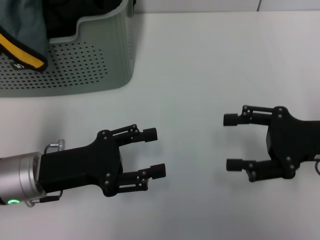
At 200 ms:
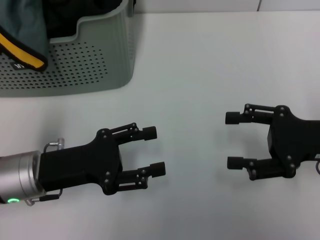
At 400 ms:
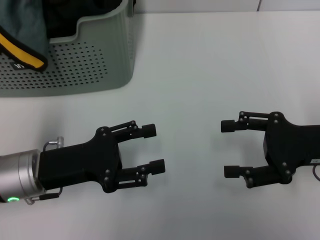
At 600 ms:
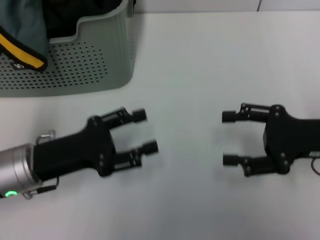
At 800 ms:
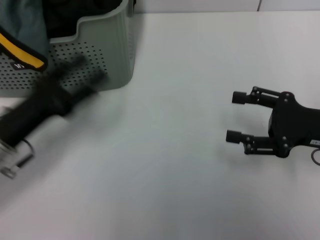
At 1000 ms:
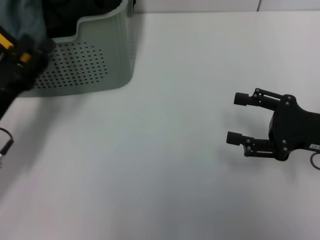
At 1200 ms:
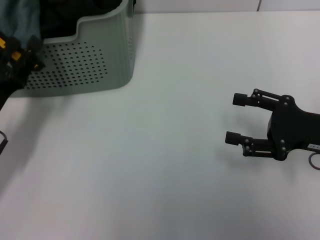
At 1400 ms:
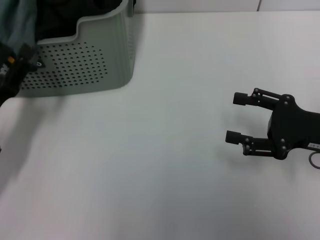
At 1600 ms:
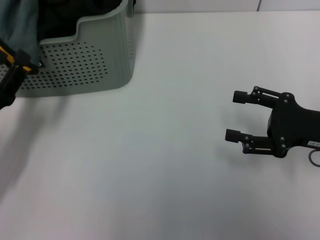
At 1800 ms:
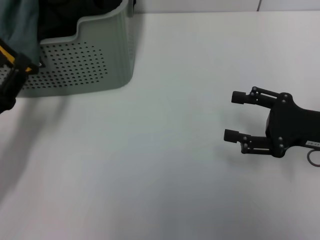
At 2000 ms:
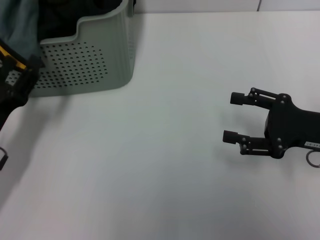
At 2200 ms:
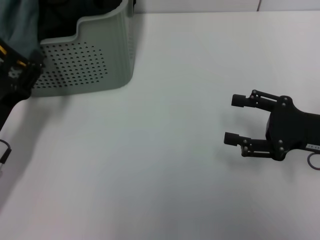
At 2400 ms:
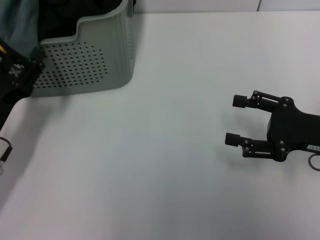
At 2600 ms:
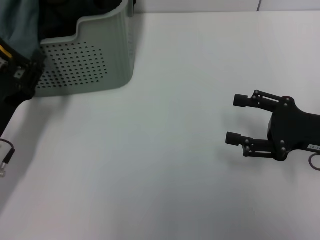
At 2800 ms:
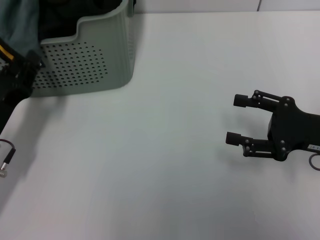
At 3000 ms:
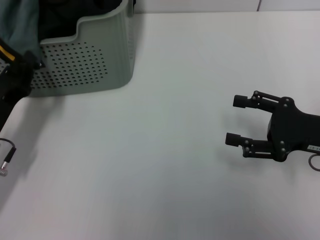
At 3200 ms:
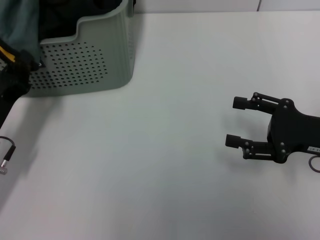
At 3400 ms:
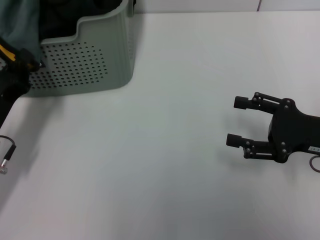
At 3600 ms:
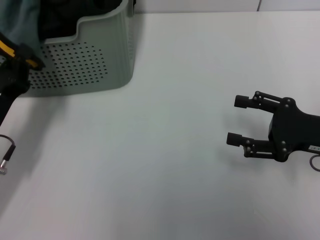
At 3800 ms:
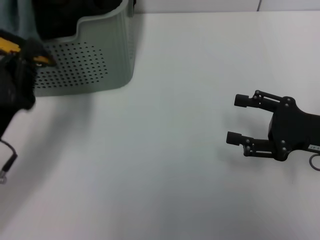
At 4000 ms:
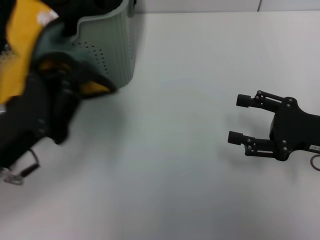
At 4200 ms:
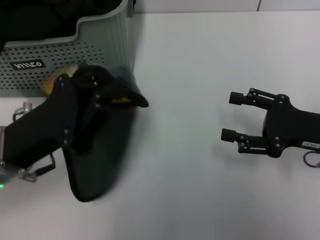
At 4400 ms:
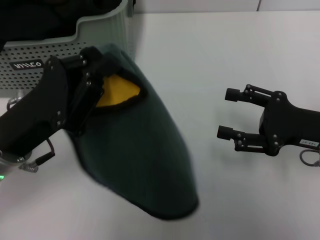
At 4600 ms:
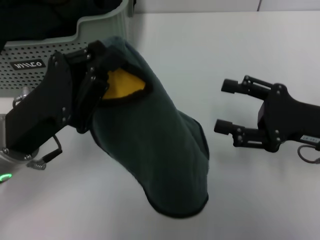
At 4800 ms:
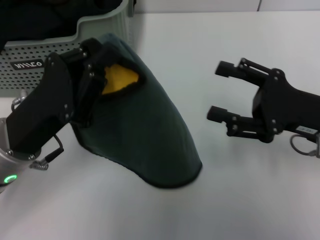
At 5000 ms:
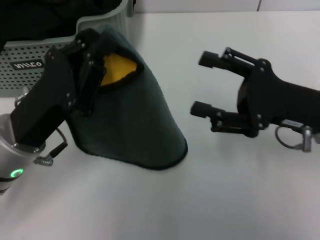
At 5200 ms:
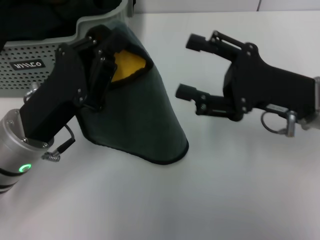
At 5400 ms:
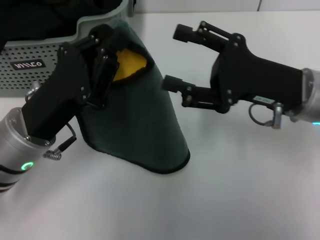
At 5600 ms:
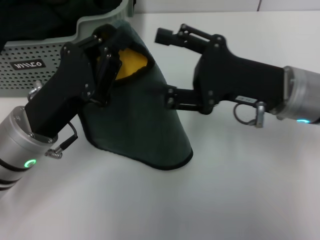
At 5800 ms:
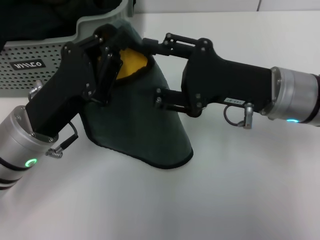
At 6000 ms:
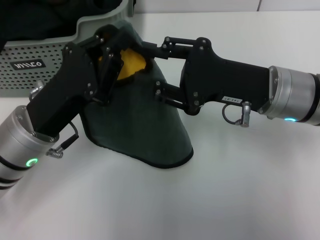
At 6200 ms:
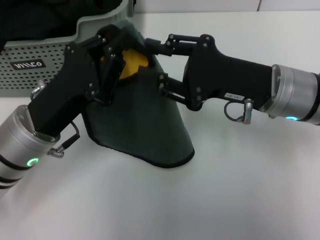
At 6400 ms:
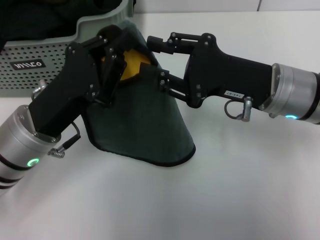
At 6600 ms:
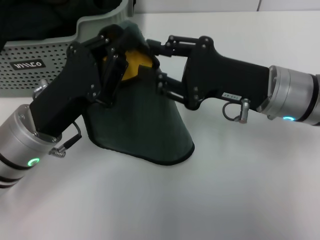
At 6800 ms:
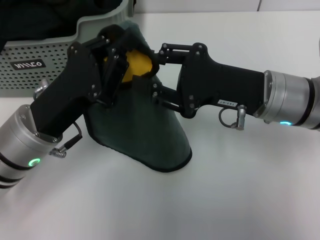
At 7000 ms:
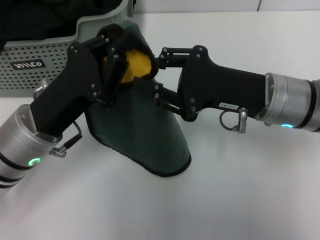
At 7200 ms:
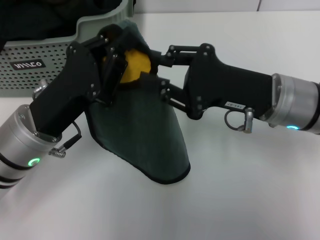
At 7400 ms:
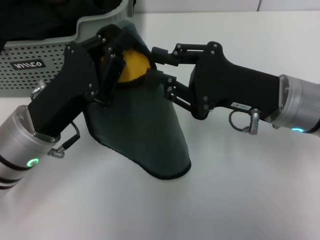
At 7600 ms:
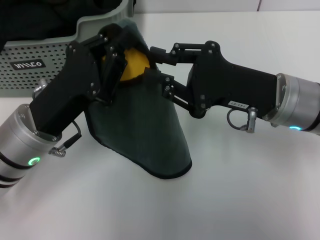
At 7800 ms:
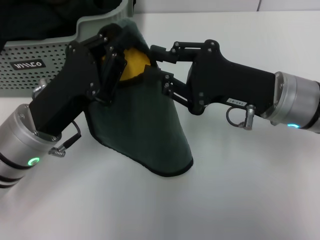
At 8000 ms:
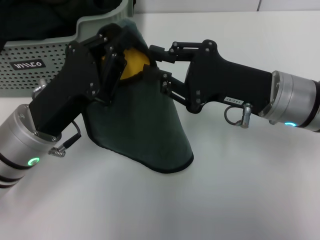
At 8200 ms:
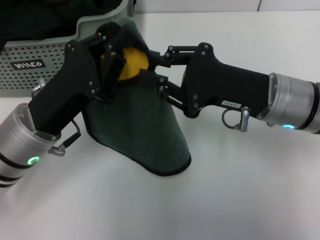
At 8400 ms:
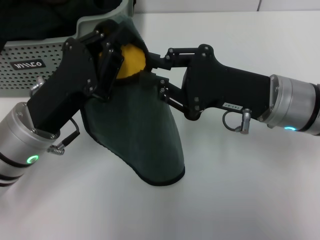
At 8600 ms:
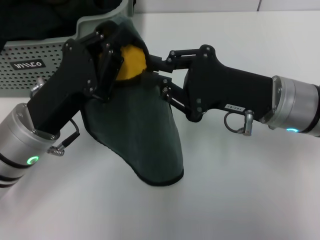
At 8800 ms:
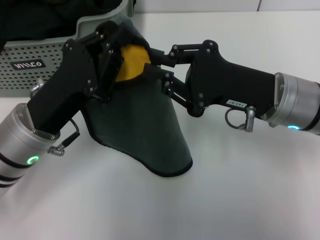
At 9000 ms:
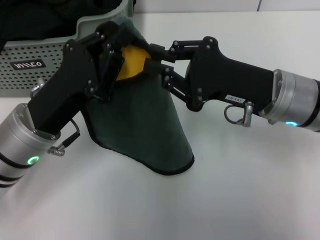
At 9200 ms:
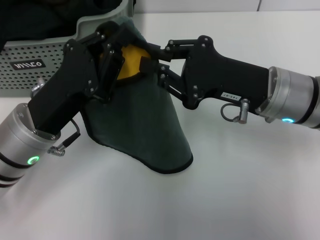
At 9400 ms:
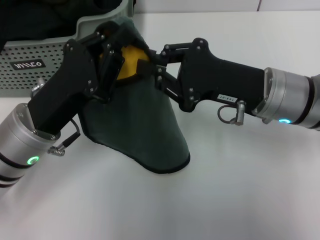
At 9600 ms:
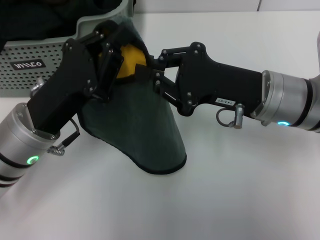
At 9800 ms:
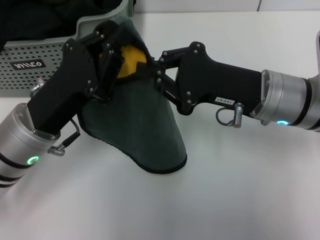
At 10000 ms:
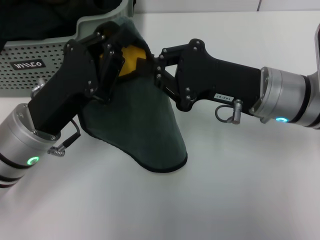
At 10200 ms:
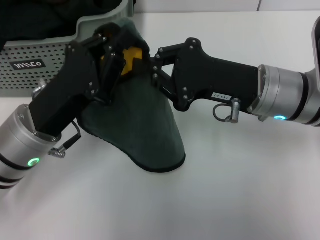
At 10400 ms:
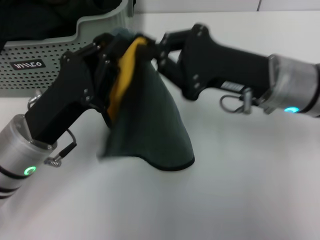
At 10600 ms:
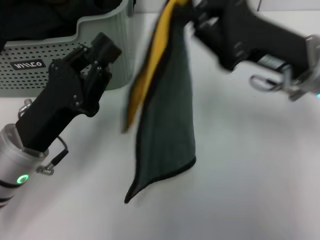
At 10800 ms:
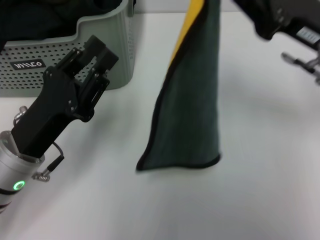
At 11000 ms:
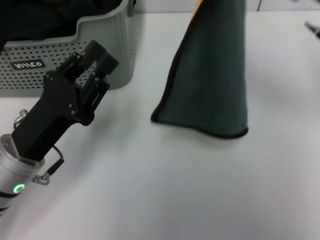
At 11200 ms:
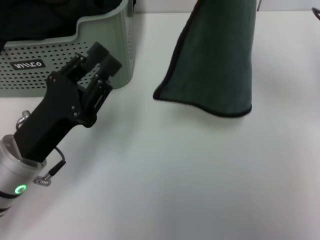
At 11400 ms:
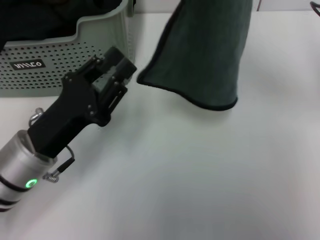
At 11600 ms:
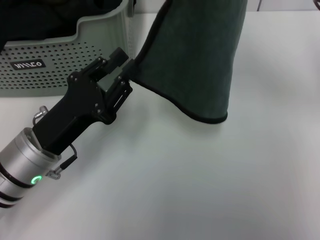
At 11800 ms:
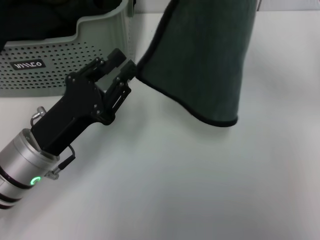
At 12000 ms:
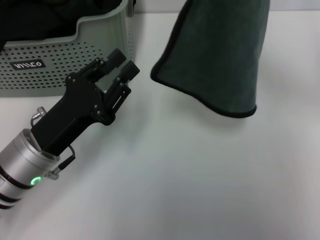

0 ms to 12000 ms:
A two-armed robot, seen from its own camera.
Task of the whole recording: pick up the towel from the storage box and lay it flat on the table.
Step, 0 ms to 3200 ms: Pick up a towel with the left gripper.
Step, 3400 ms to 9800 ms: Spread the towel flat with the left gripper.
0 ms to 1600 ms: The left gripper goes approximately 5 cm to the left.
1600 ms to 3000 ms: The left gripper closes.
3000 ms to 4400 ms: The left gripper heads upward and to the right, covering some 10 cm.
4400 ms to 6000 ms: The right gripper goes about 10 cm to the left.
6000 ms to 7600 ms: The right gripper closes.
7600 ms to 9000 ms: Both grippers stay put.
9000 ms to 10400 ms: The grippers stay close to where they were, moving slightly.
10400 ms to 12000 ms: The right gripper goes about 10 cm to the right and upward.

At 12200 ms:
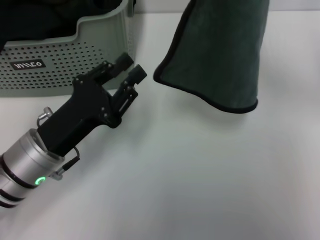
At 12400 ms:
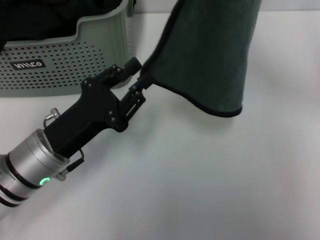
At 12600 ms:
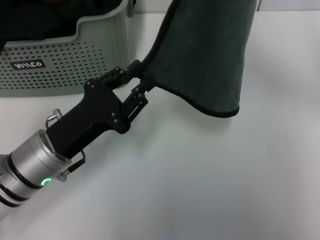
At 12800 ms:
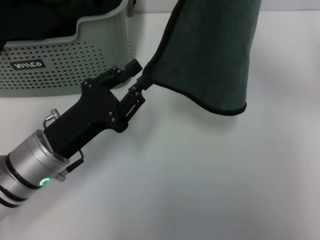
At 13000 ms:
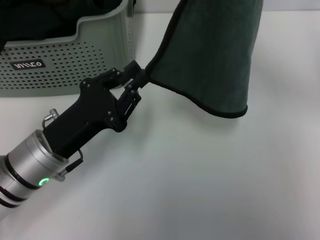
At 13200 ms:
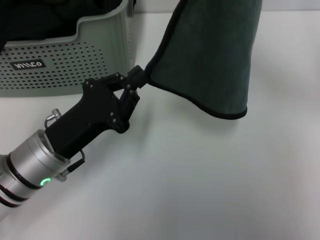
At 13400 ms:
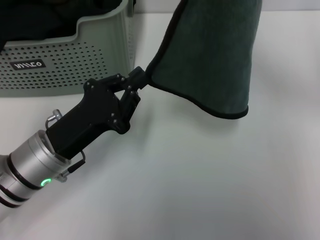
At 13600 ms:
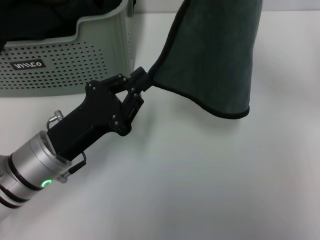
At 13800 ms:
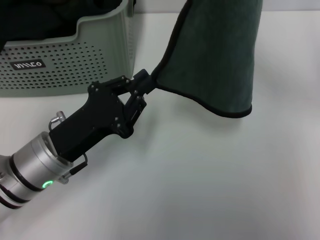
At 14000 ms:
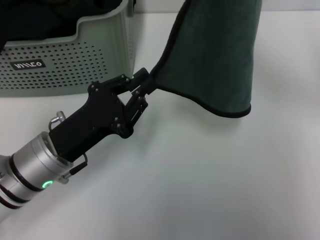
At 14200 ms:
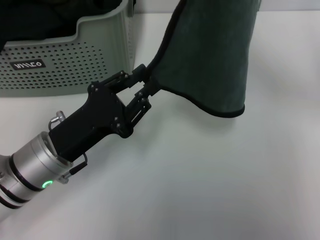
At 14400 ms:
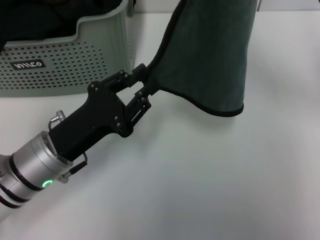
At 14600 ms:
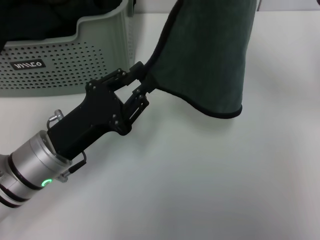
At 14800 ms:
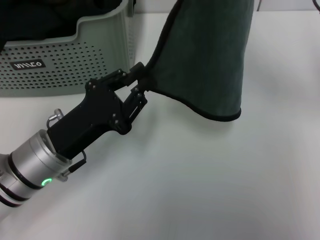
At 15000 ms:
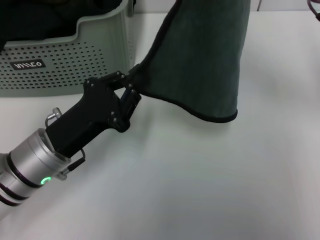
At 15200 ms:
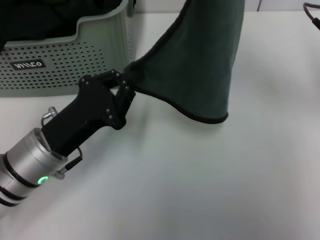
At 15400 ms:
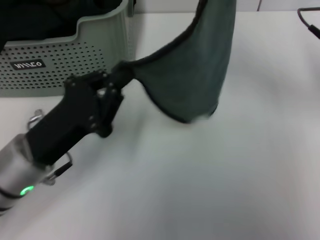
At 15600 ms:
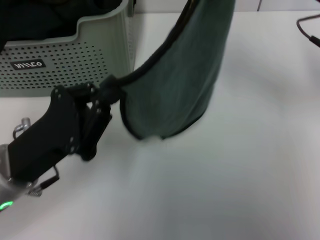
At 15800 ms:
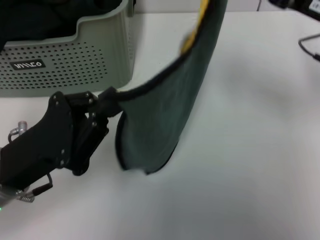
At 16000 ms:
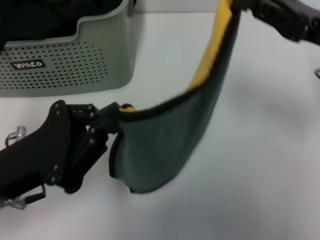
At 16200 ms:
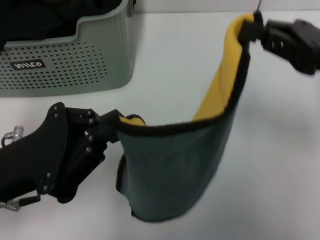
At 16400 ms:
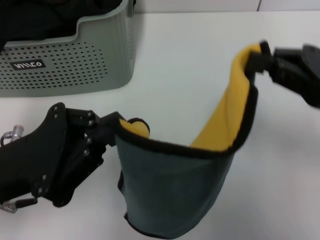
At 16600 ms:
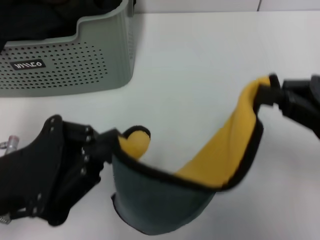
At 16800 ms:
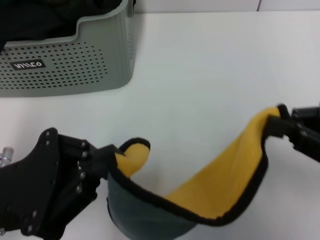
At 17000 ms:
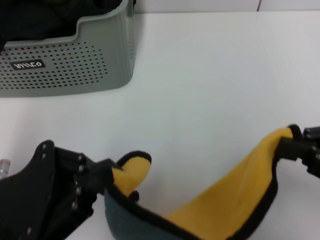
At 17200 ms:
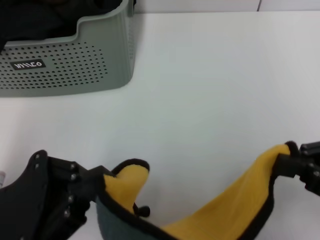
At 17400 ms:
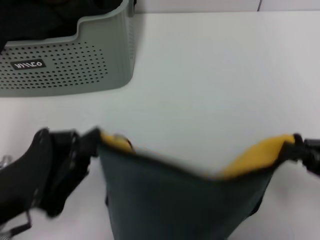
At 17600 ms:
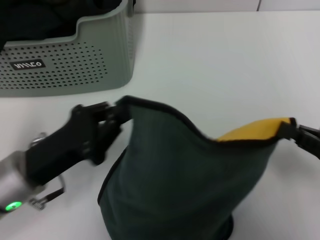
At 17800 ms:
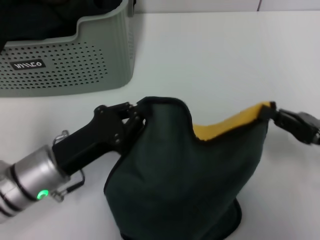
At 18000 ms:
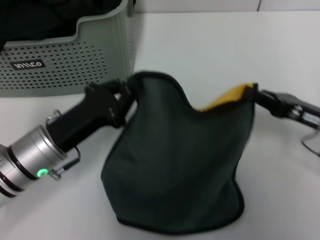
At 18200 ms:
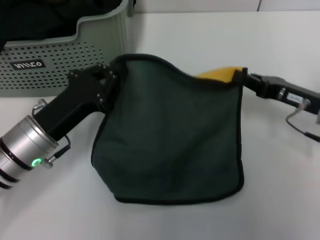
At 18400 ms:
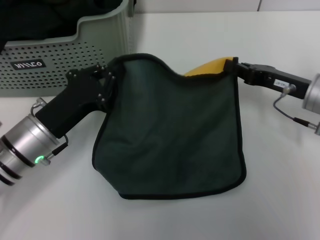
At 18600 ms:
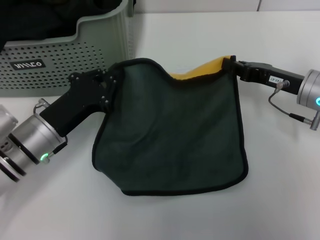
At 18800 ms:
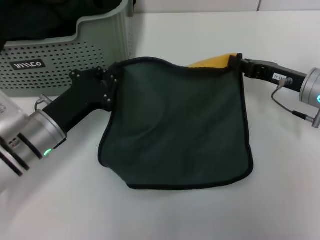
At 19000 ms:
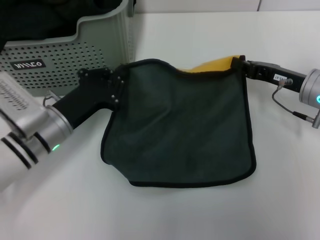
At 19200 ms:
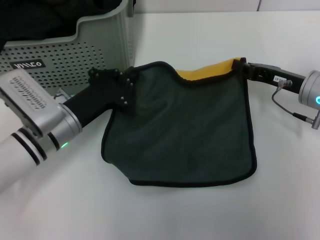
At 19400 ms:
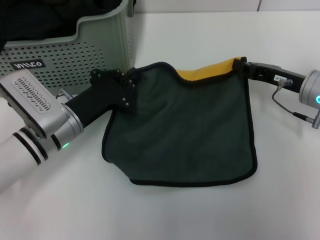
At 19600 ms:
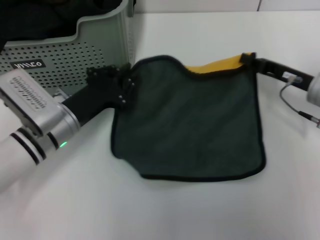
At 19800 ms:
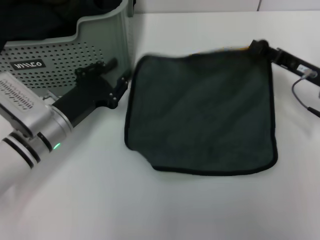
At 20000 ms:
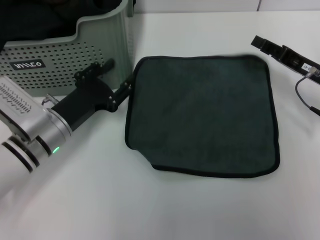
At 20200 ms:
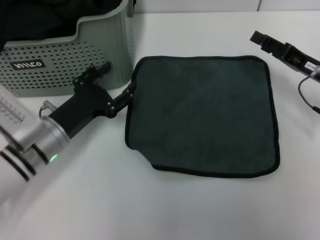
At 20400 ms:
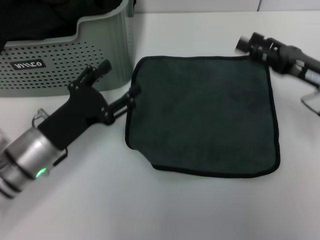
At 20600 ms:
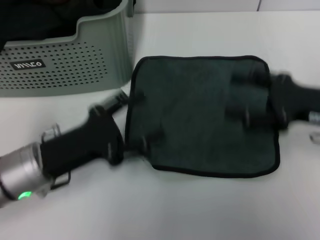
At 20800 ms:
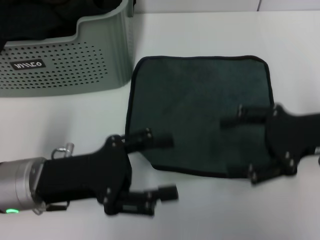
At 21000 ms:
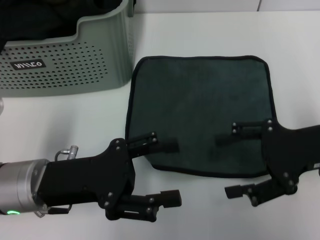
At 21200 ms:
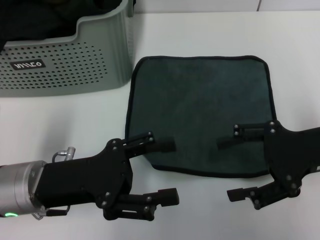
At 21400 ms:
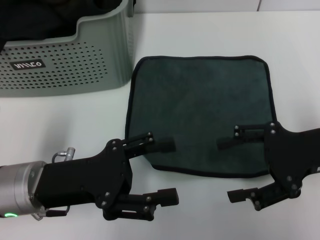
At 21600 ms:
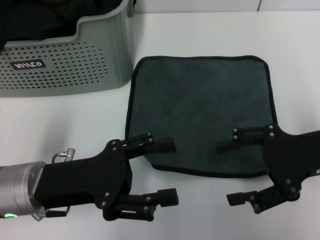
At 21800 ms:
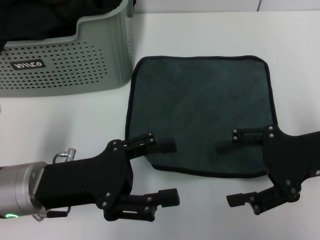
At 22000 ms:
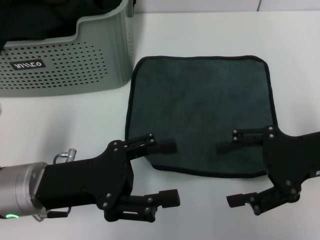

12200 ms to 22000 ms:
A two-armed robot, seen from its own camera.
Task of the whole recording: pick up the towel from the storage box and lay it flat on the table.
Step, 12200 ms to 19800 ms: Spread the towel flat with the right gripper.
12200 ms to 13600 ms: The left gripper closes.
13600 ms to 15000 ms: The two grippers keep their place.
15000 ms to 16400 ms: The right gripper moves backward, some 10 cm. The left gripper goes approximately 5 cm upward.
16400 ms to 17800 ms: The left gripper moves downward, roughly 10 cm, while the right gripper moves downward, approximately 10 cm.
17800 ms to 19200 ms: The right gripper heads forward and to the left, covering some 15 cm, while the left gripper heads forward, covering roughly 5 cm.
19200 ms to 20600 ms: The left gripper moves backward, roughly 5 cm, and opens its fingers, while the right gripper goes some 10 cm backward and upward, and opens its fingers.
